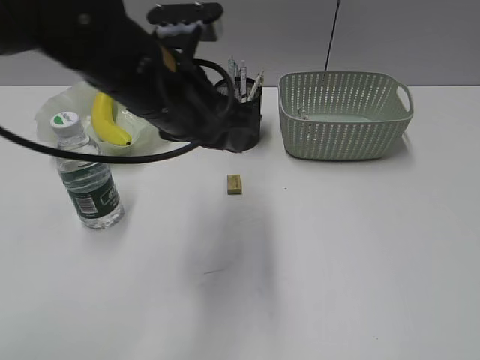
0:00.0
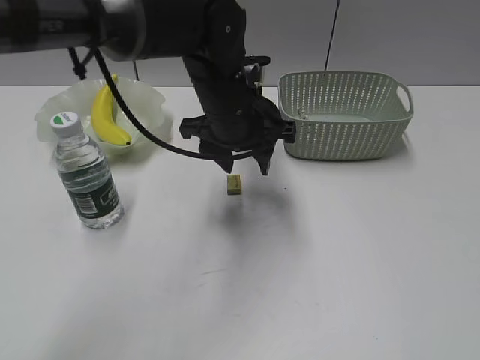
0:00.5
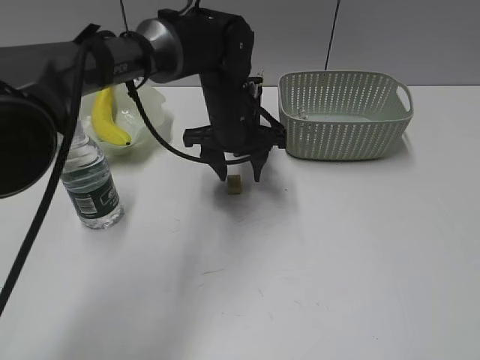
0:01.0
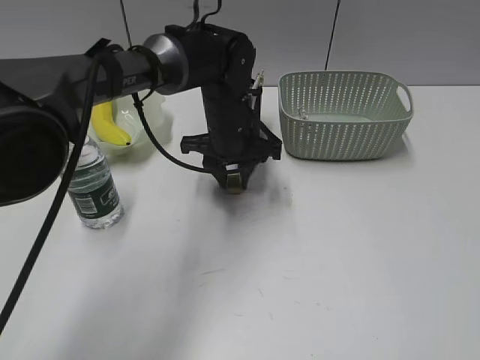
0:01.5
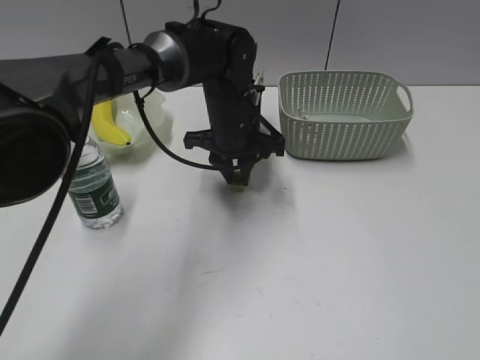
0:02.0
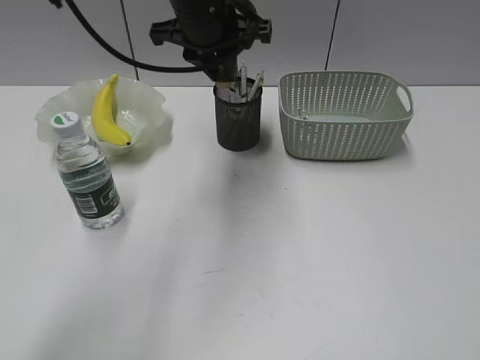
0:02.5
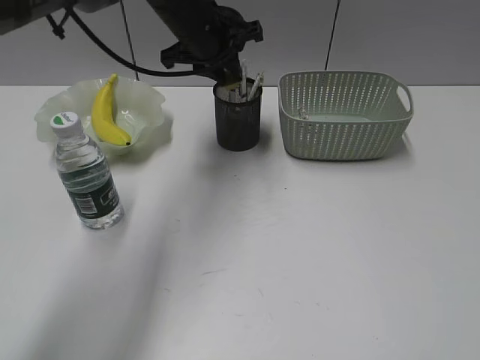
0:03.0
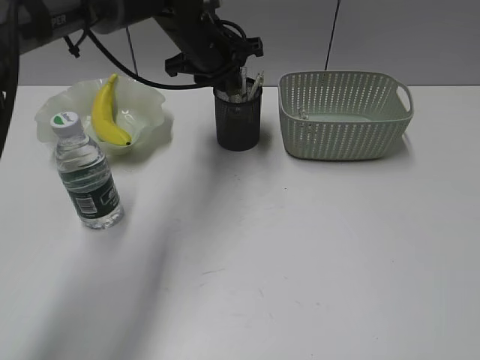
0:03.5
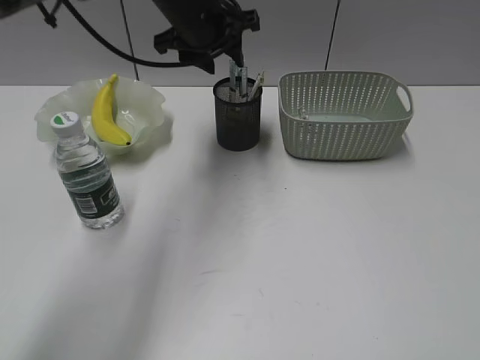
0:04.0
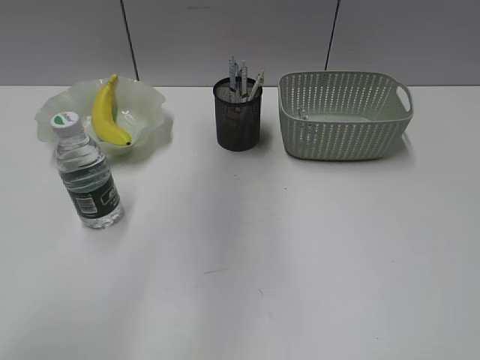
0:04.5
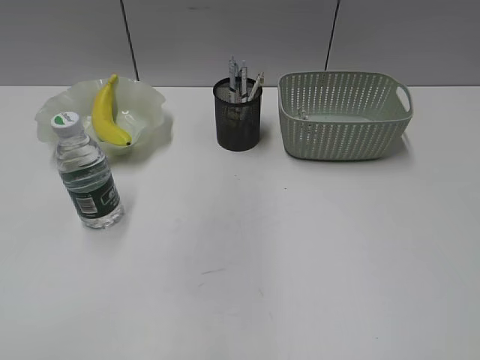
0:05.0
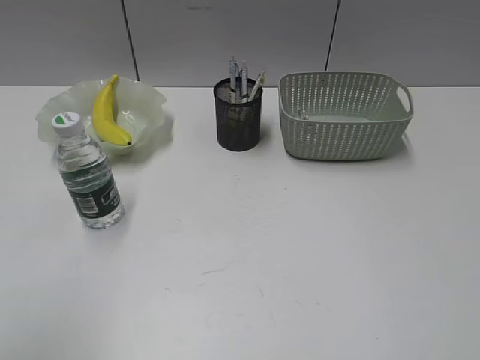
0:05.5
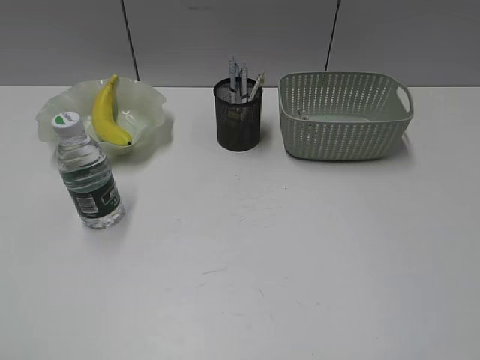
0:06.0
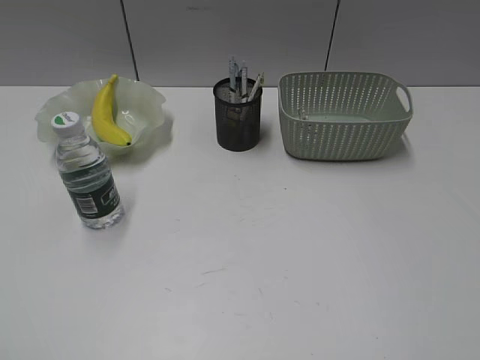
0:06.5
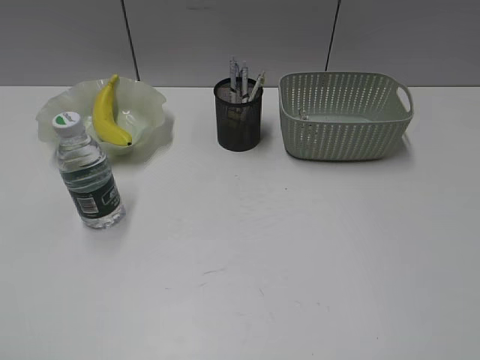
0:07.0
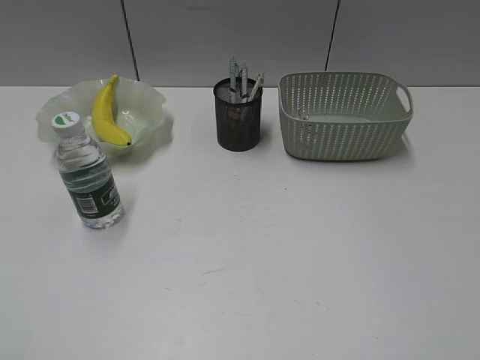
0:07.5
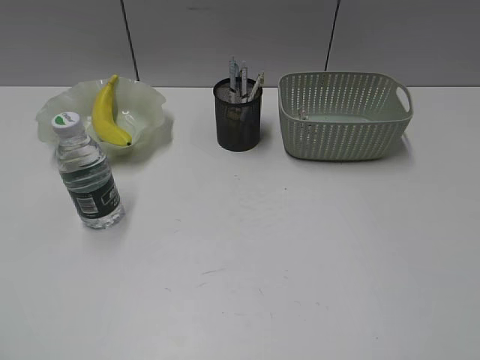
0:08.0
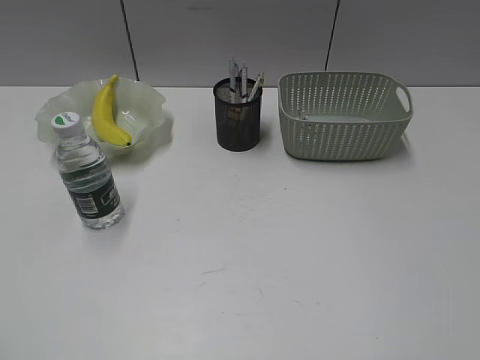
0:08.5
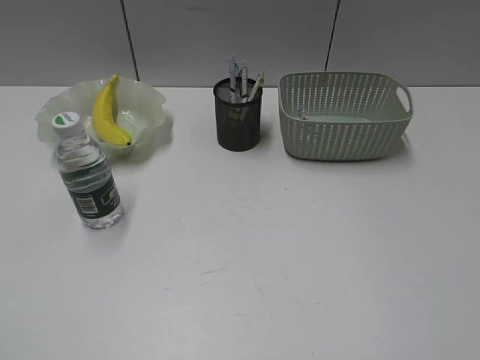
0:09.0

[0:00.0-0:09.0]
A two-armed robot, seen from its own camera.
Step, 0:02.0 to 0:03.5: Place the eraser in pen holder with left gripper.
0:00.0 to 0:02.0: The left gripper moves forward, downward and to the right, some 20 cm.
0:02.0 to 0:04.5: The left gripper goes up and down, roughly 30 cm each way, reversing 2 times, and opens.
0:04.5 to 0:07.0: The left gripper travels backward and to the left by roughly 40 cm.

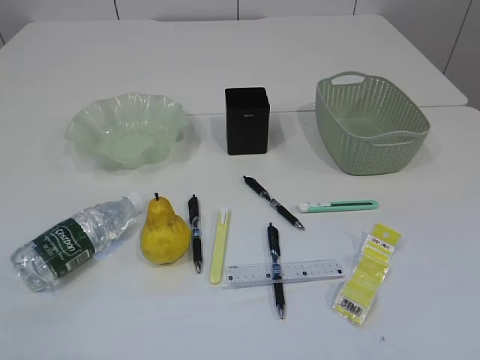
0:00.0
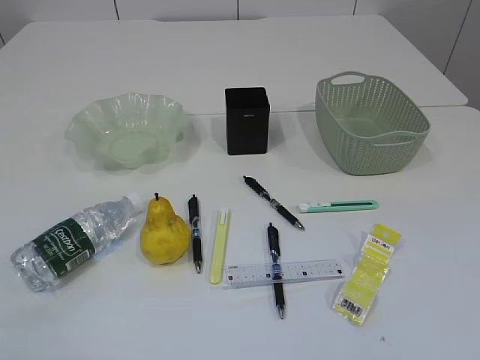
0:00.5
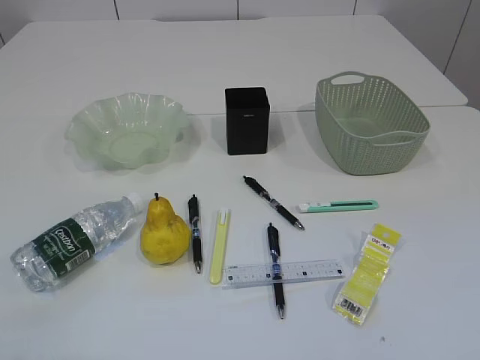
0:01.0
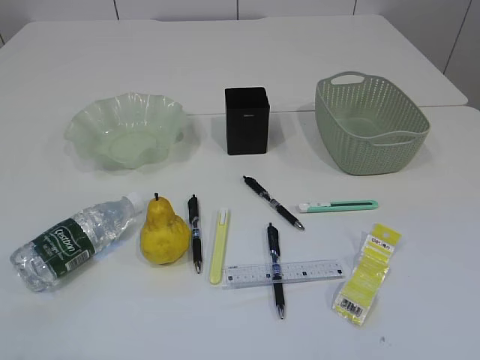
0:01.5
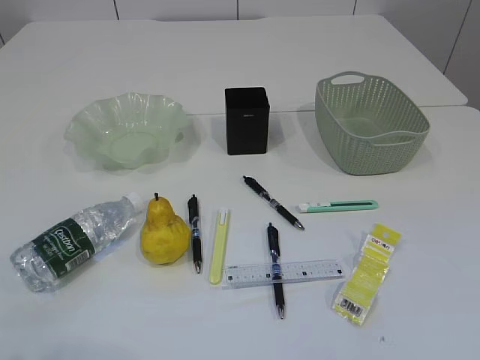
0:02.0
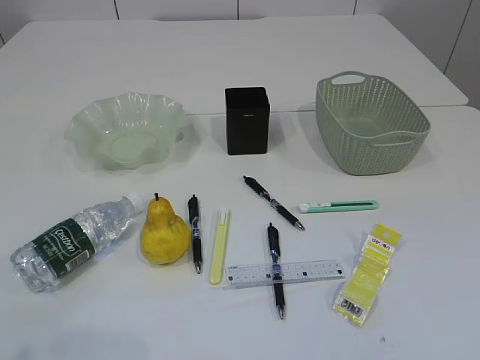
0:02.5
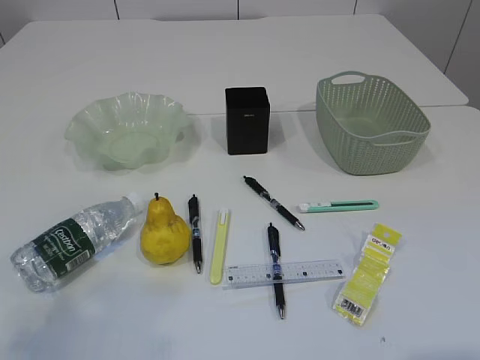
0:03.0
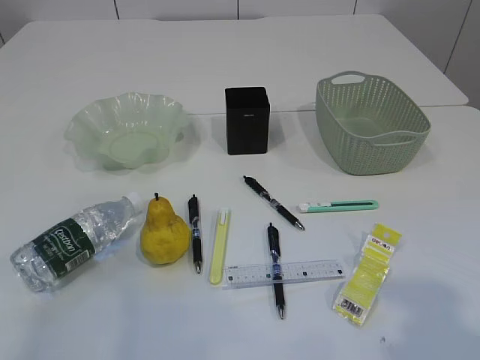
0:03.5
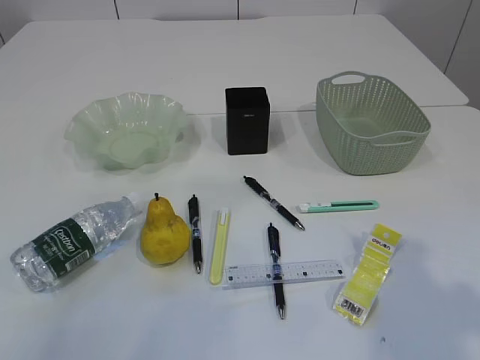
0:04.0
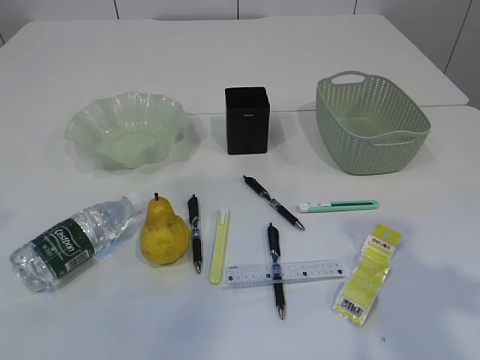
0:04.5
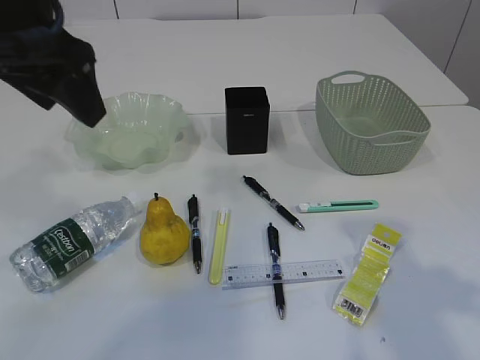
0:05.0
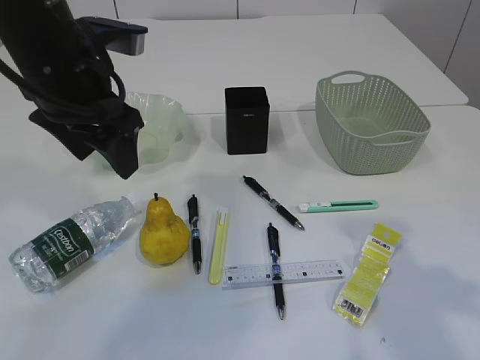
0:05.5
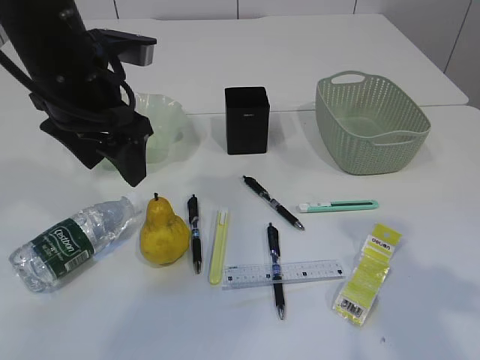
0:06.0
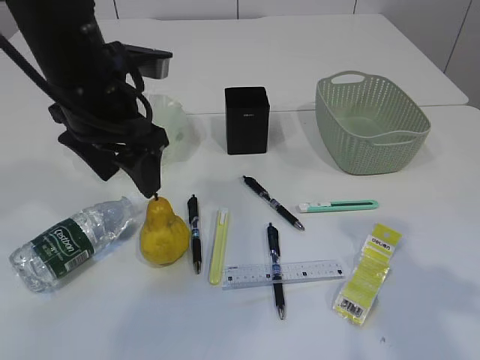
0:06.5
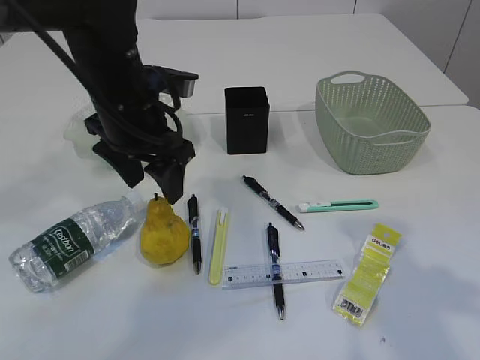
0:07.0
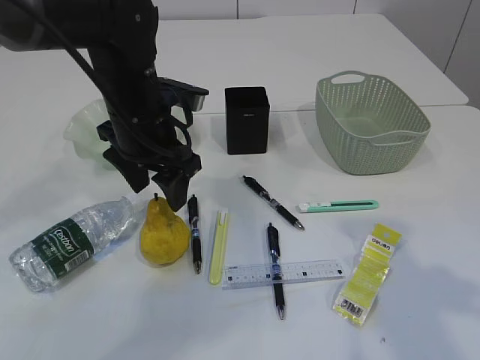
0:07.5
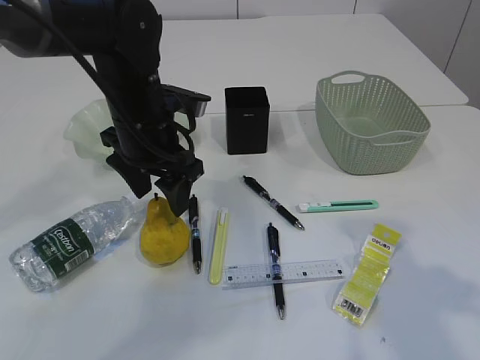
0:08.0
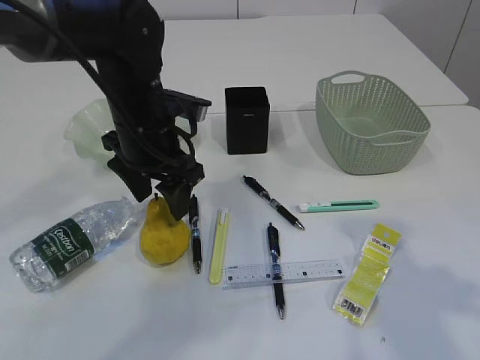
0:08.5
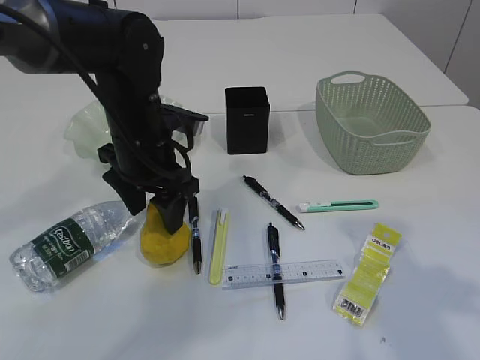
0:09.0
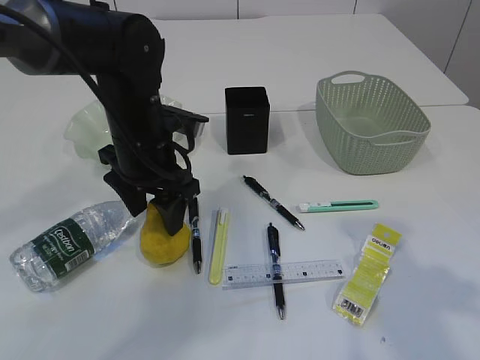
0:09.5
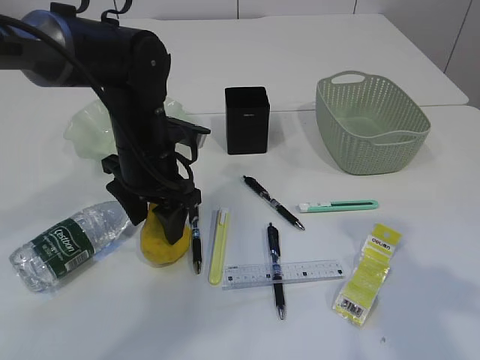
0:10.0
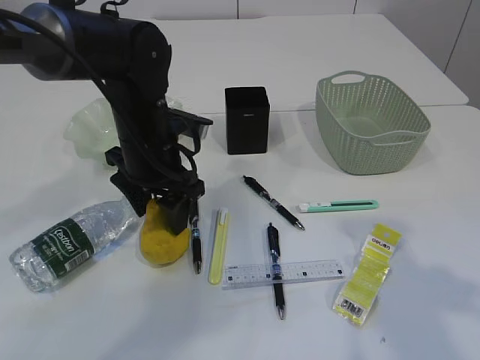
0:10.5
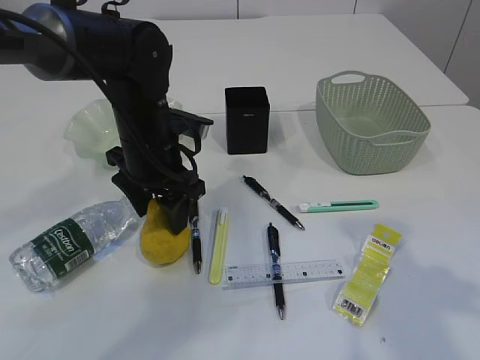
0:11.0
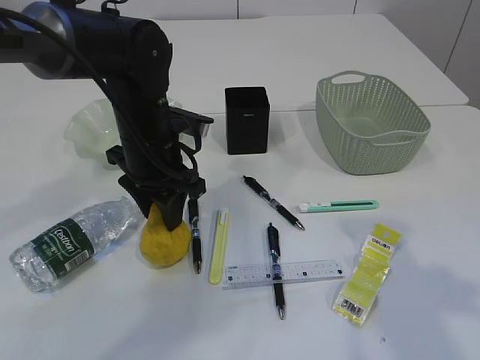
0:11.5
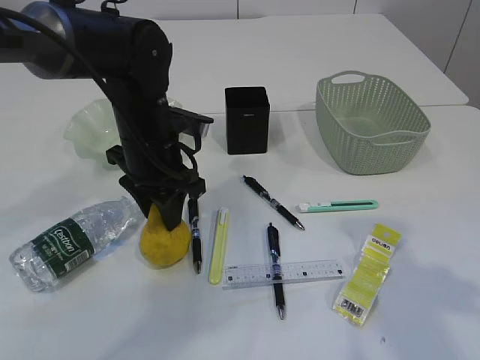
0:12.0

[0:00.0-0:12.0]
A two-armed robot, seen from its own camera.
0:02.0 to 0:04.0: Both grippers travel together forward and upward, roughly 15 cm.
0:04.0 to 0:06.0: The left gripper goes approximately 25 cm forward, to the right and downward.
0:06.0 to 0:08.0: The left gripper heads downward, covering some 5 cm.
0:08.0 to 0:10.0: The grippers make only small movements.
0:10.0 to 0:12.0: The left gripper closes its fingers.

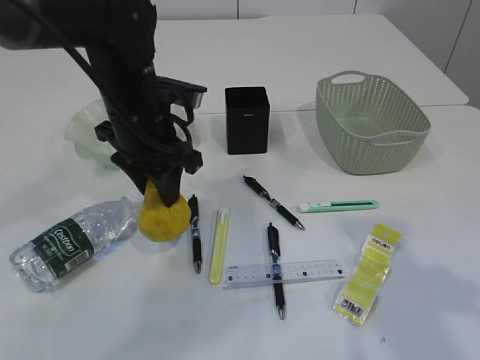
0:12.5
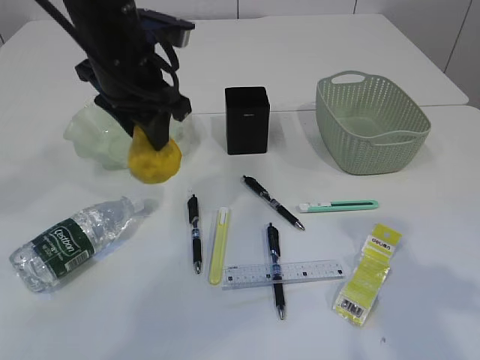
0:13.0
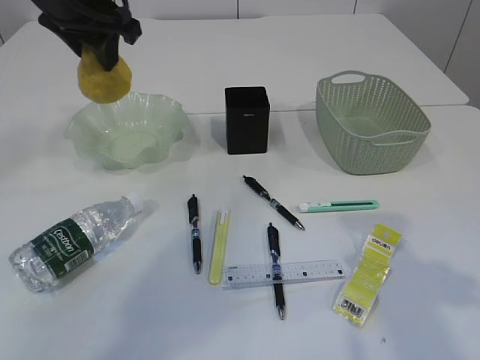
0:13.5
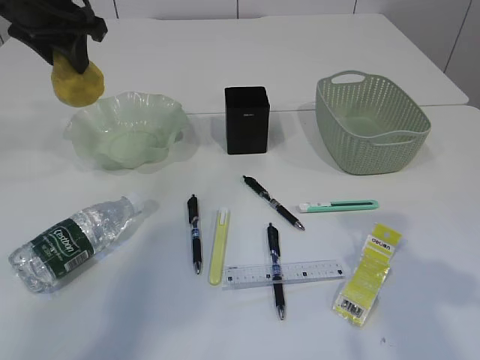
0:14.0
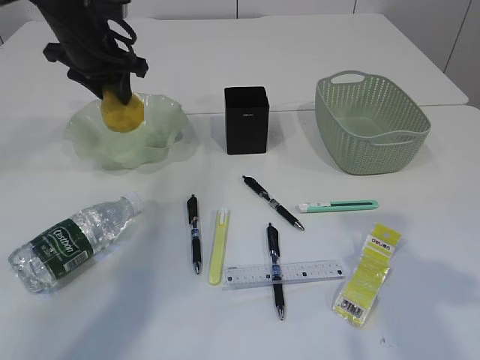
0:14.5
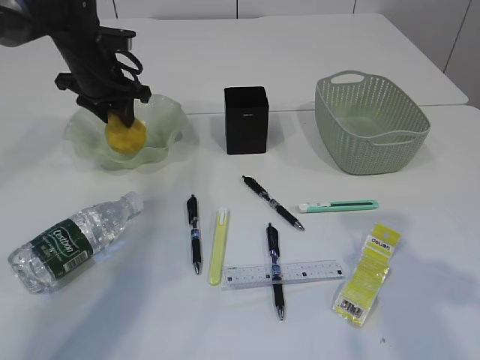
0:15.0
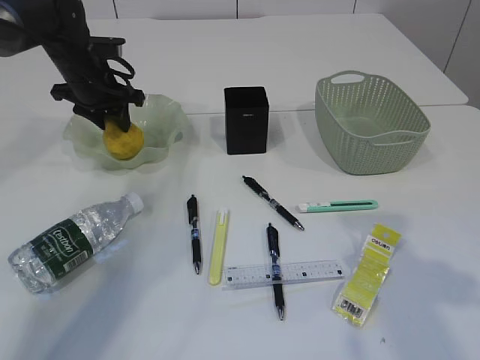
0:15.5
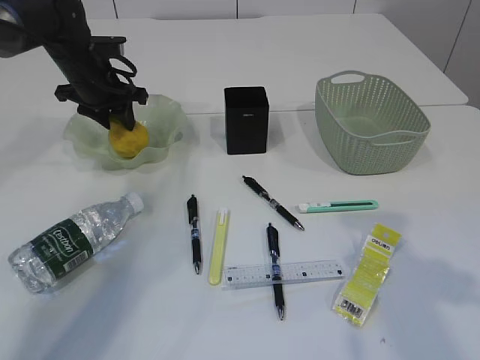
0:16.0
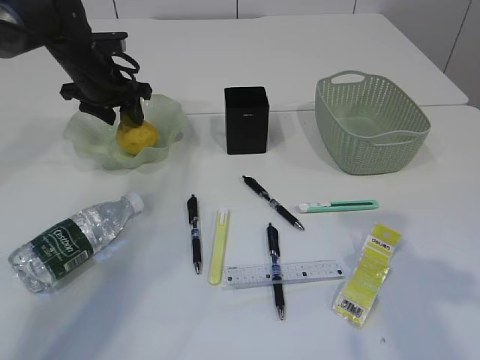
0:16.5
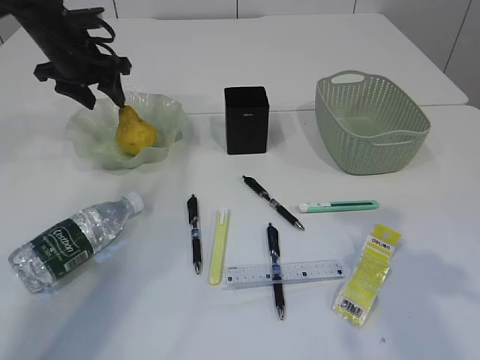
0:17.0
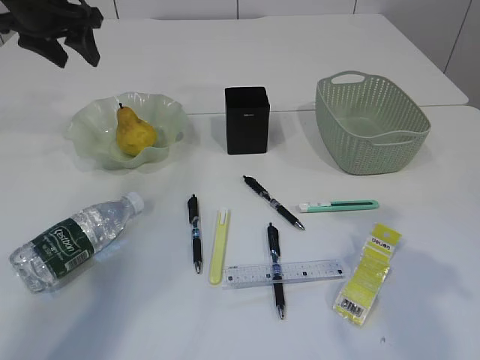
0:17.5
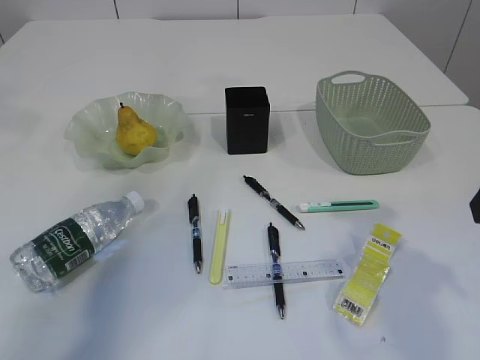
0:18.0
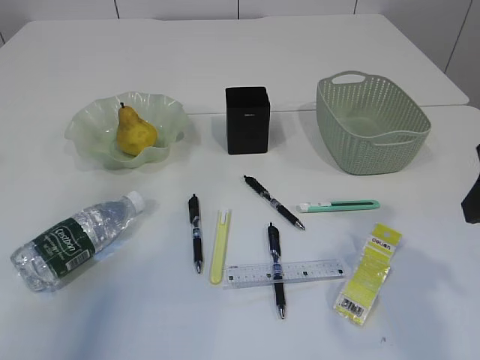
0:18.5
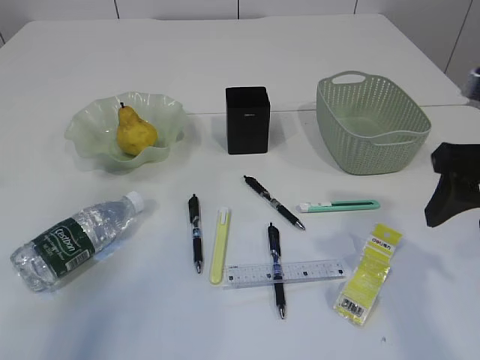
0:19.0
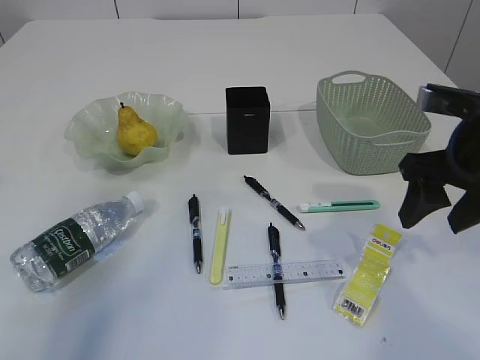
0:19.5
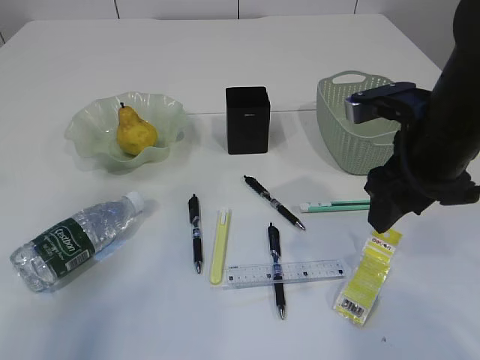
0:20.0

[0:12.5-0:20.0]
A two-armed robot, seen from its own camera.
Step, 0:13.0 to 0:17.0: Place the pear in the plate.
0:12.5 to 0:14.5: The left gripper goes about 15 cm forward and to the left, and reaches approximately 15 cm upward, then returns.
0:14.5 to 0:16.5: The left gripper travels downward by some 5 cm, and opens.
0:16.5 to 0:18.0: The left gripper goes about 20 cm upward.
0:18.0 to 0:20.0: The right gripper shifts about 15 cm forward, downward and to the left. Meanwhile the left gripper travels backward and downward by about 10 cm.
